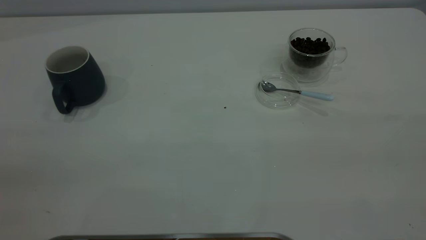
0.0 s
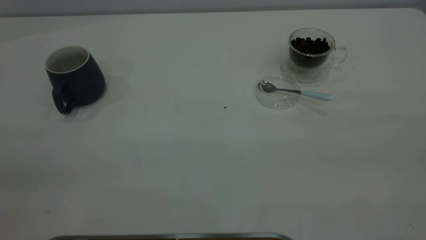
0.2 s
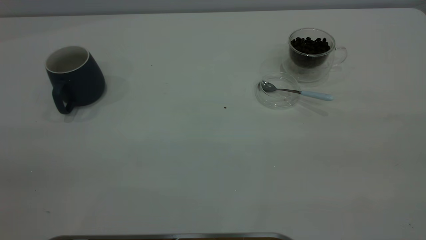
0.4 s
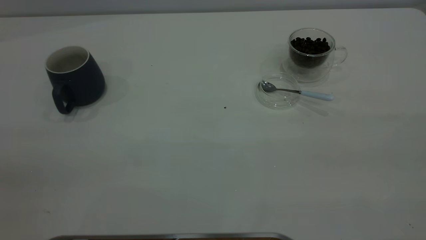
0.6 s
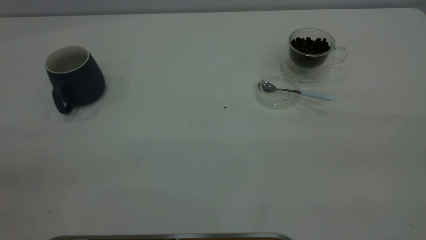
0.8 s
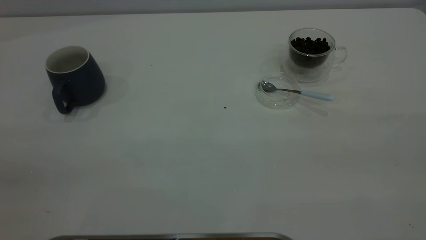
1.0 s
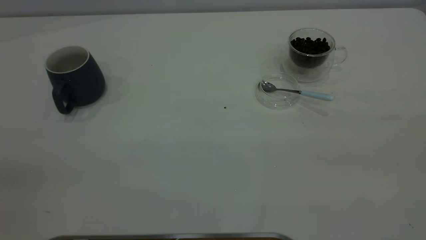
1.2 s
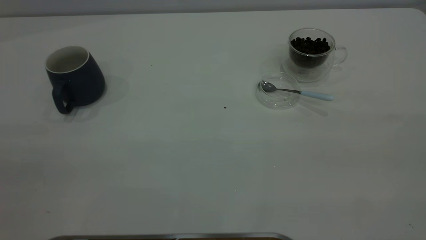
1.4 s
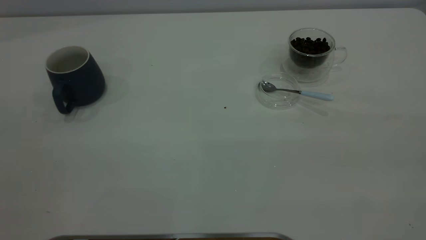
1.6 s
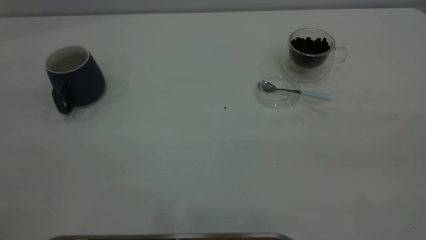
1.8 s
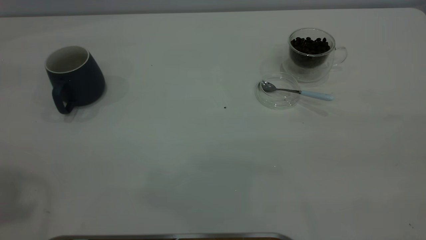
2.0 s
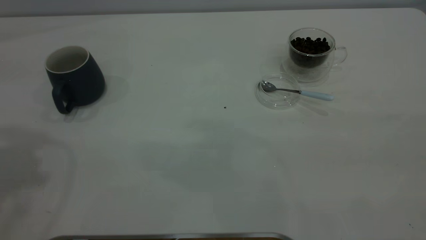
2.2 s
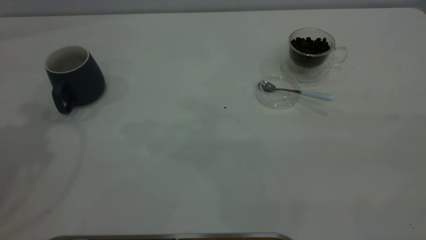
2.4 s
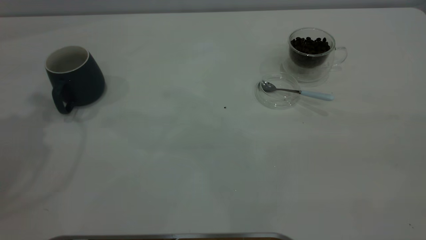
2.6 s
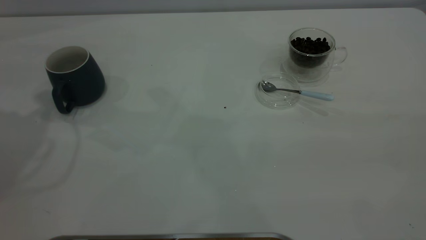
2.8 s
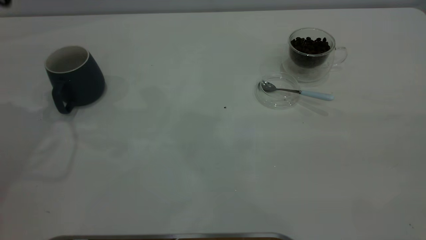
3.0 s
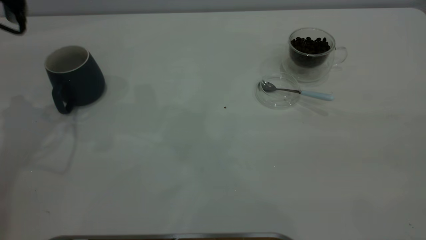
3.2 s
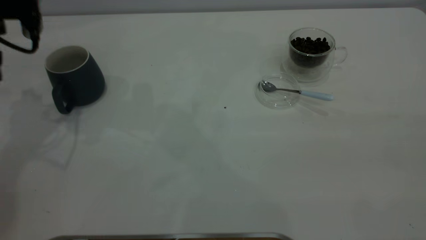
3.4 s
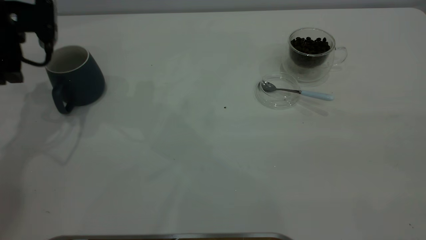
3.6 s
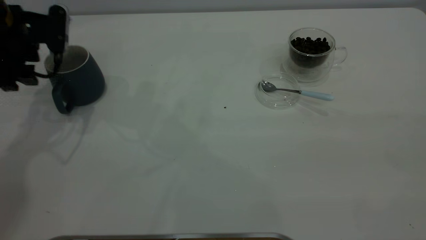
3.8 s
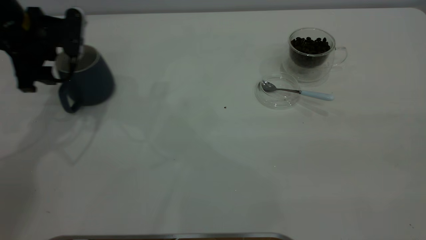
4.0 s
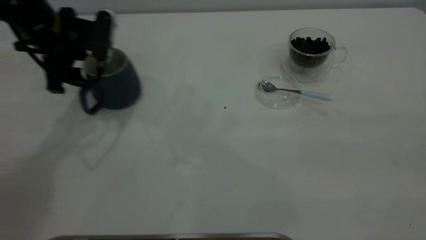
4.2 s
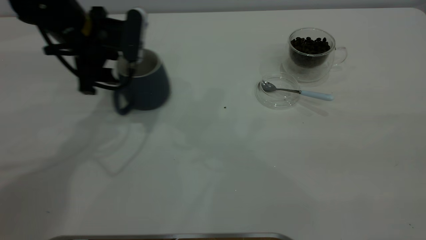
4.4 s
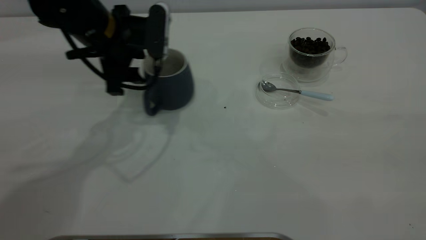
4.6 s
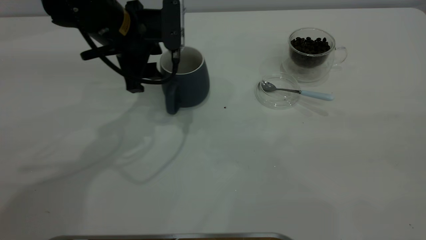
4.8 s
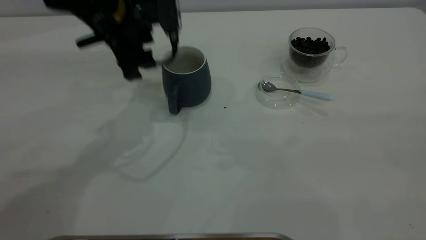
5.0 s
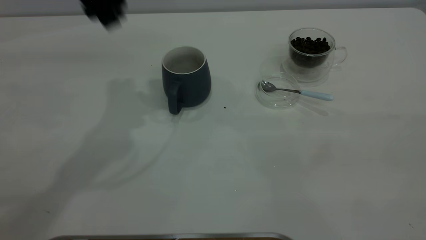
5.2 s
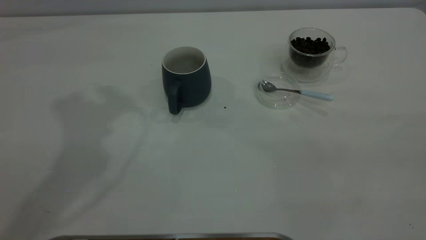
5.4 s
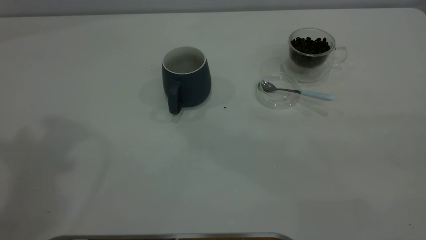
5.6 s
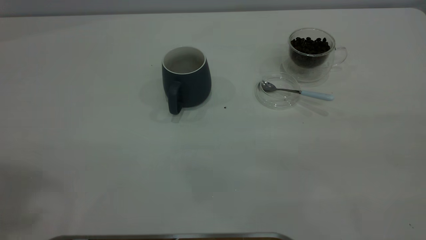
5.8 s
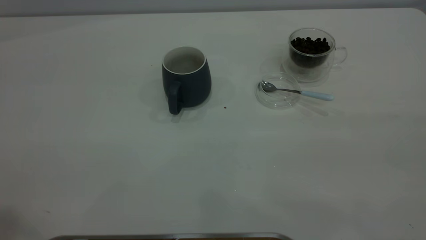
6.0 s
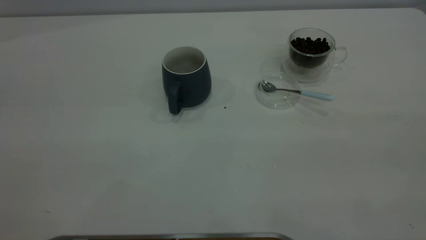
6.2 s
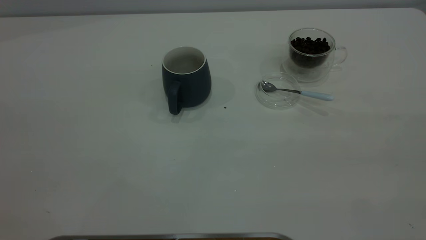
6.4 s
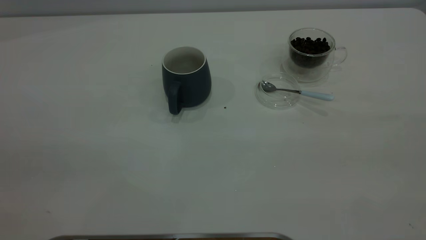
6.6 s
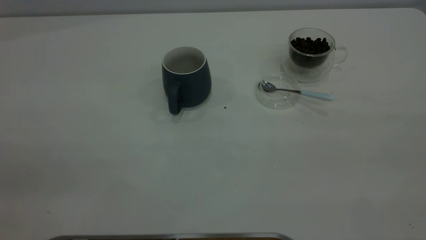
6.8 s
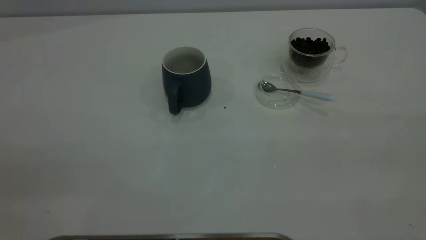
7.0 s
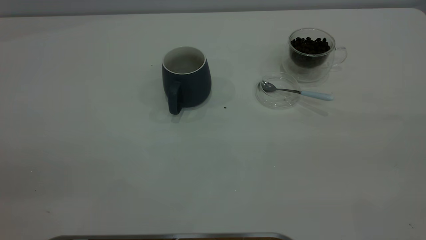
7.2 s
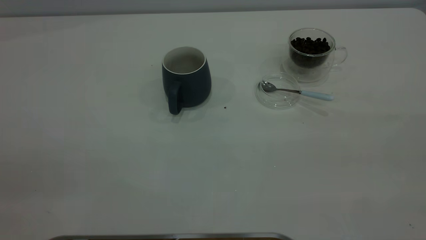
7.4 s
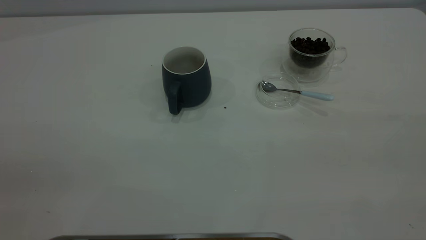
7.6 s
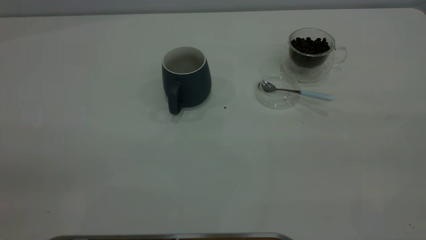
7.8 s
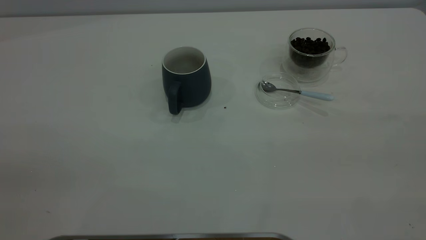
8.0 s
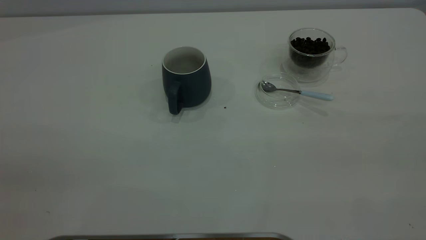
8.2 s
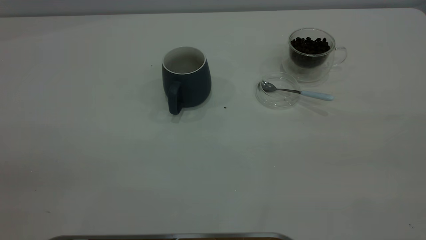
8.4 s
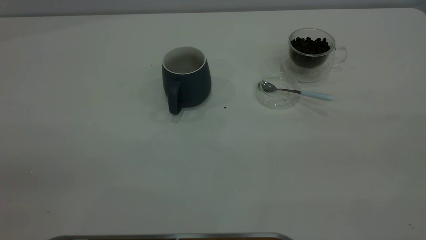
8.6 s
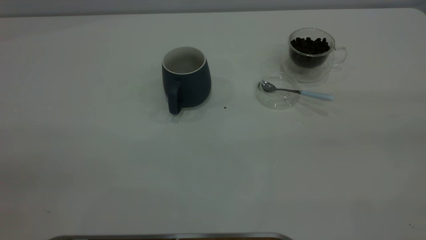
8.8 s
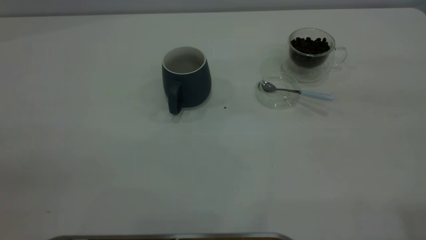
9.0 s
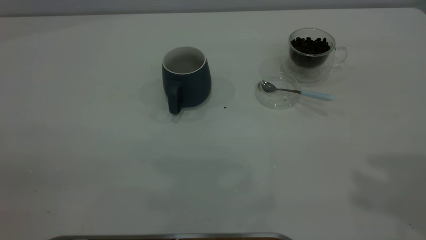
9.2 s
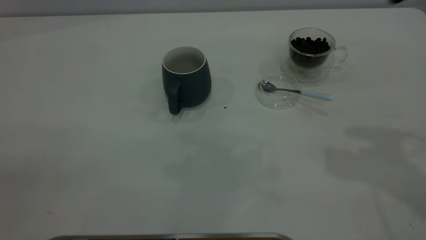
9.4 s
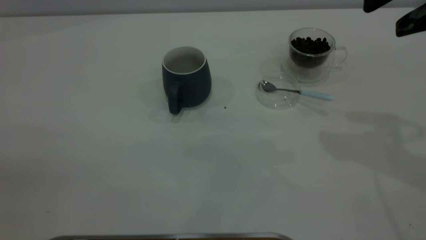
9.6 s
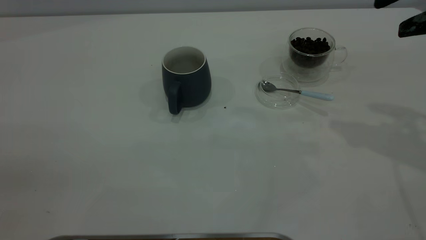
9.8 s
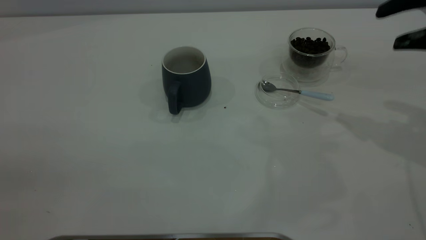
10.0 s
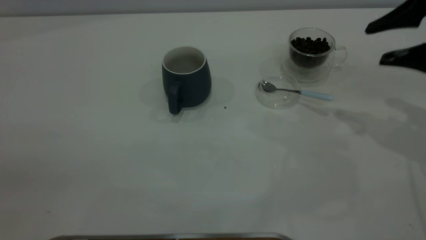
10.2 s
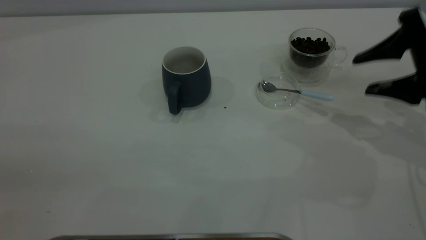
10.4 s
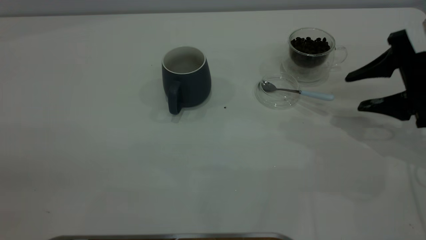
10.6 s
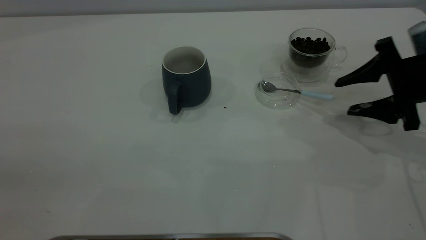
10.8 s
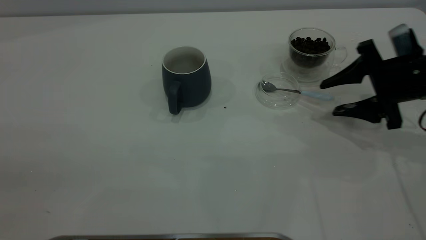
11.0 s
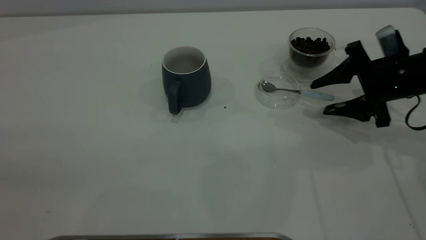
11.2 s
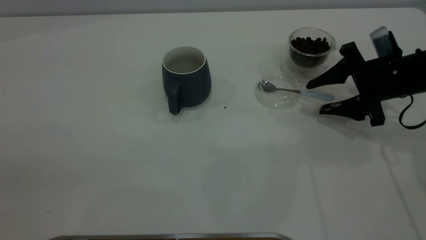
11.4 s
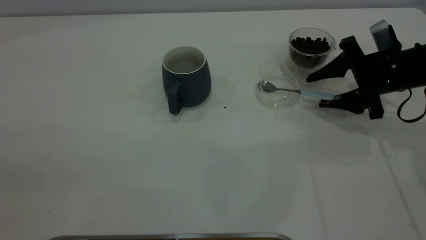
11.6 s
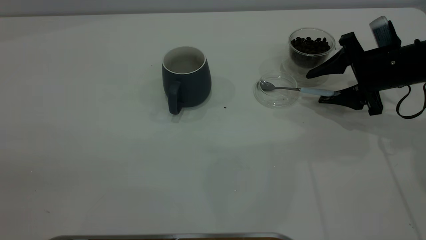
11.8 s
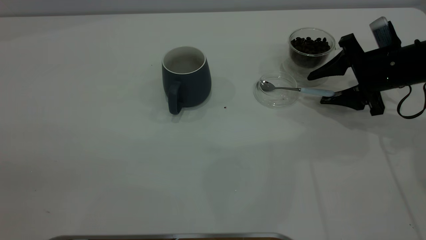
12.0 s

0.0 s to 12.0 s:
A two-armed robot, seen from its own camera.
Task of the whole recording: the left gripper place the grey cup in the center of the table, the right gripper take the blue spoon from the cup lid and scoop out the coffee beans from the coffee cup and put them into the grey cup, the right gripper put the spoon back into the cup lid.
Step, 0.0 to 5.0 s: Move the cup to the center of view.
3.0 to 4.4 s: The left gripper heads to the right and downward, covering roughly 20 cm.
4.4 to 6.0 s: The left gripper moves upward and backward, some 50 cm.
9.0 to 10.4 s: The right gripper shifts roughly 35 cm downward and forward.
10.4 to 12.0 s: The right gripper moves forward and downward, some 10 cm.

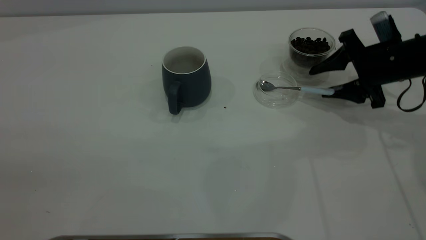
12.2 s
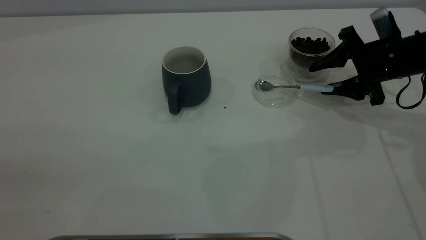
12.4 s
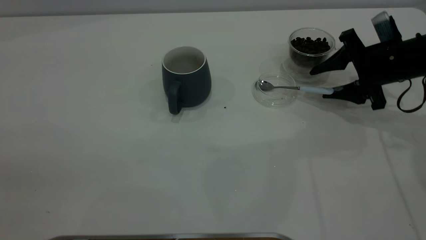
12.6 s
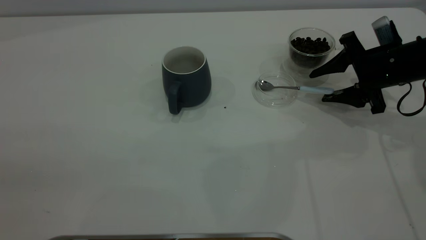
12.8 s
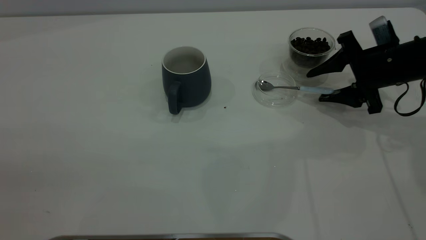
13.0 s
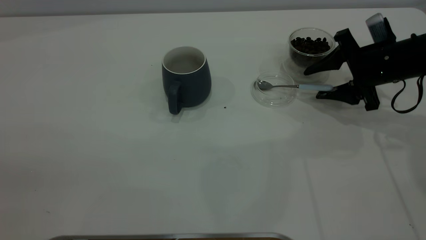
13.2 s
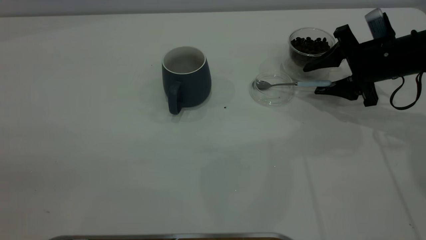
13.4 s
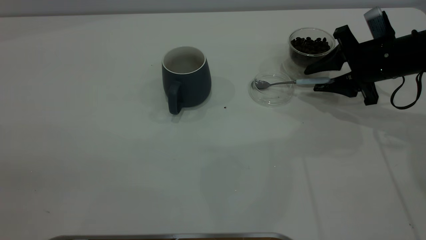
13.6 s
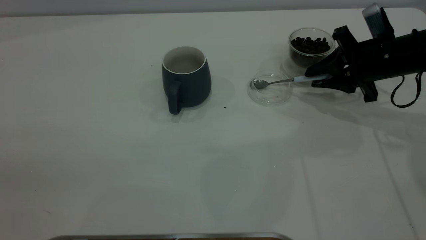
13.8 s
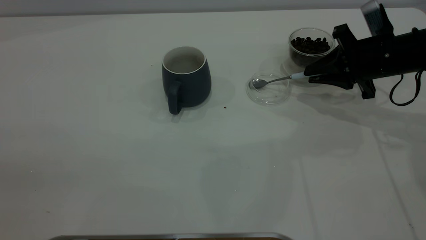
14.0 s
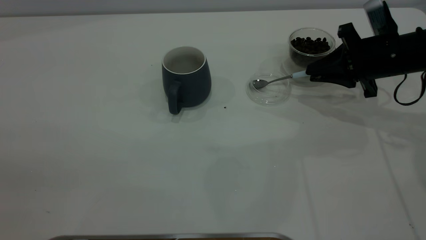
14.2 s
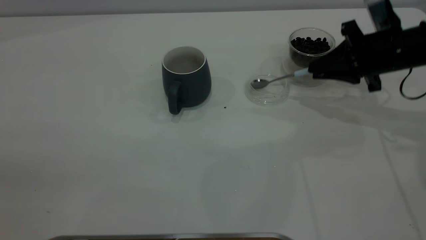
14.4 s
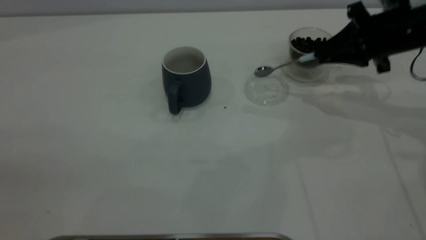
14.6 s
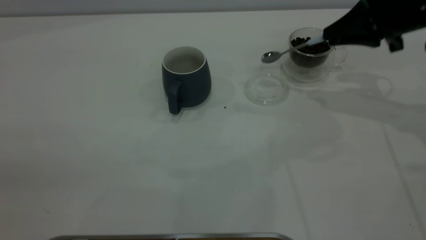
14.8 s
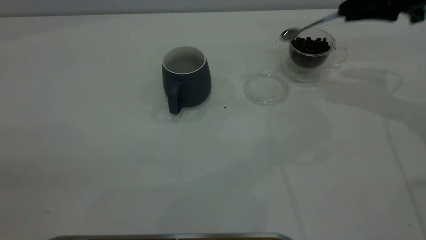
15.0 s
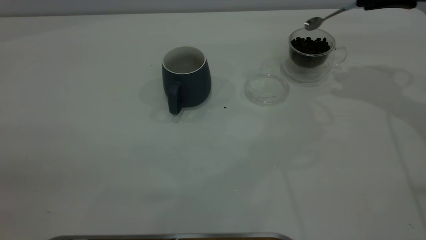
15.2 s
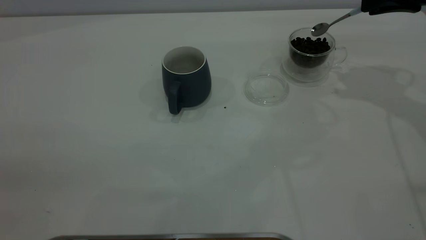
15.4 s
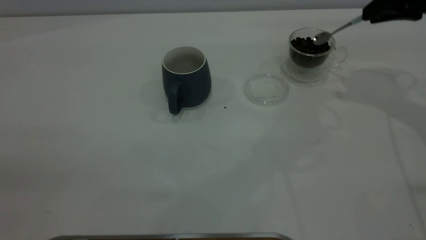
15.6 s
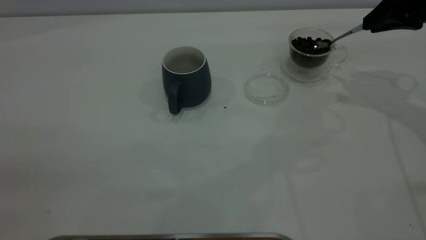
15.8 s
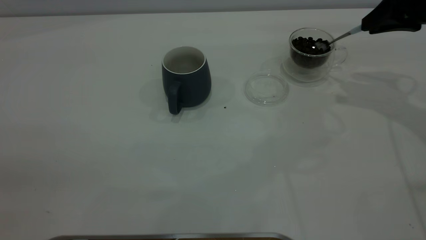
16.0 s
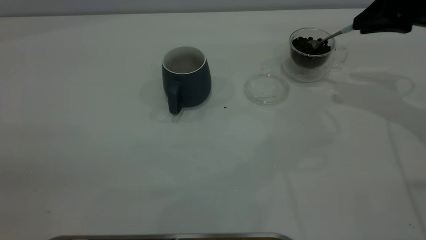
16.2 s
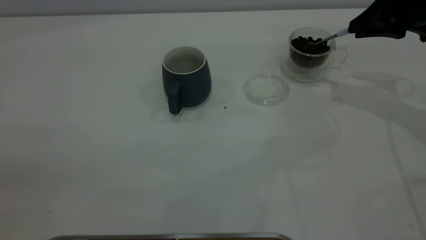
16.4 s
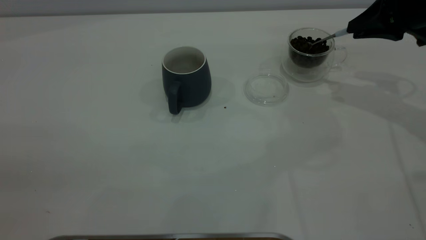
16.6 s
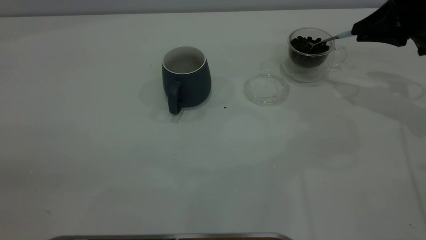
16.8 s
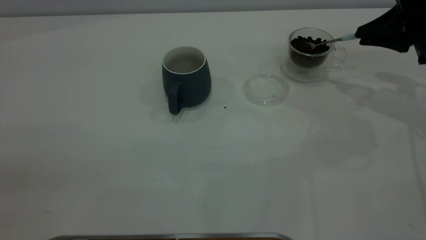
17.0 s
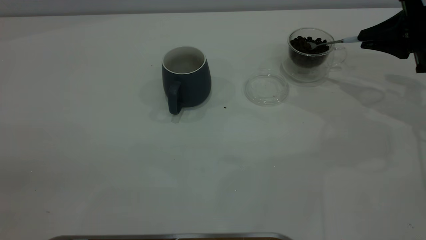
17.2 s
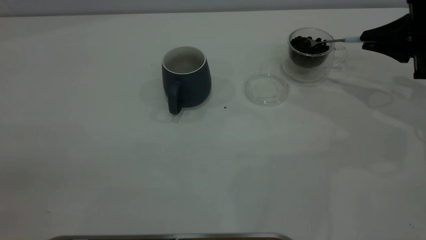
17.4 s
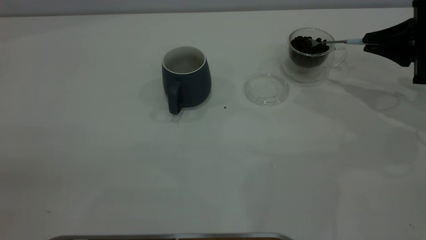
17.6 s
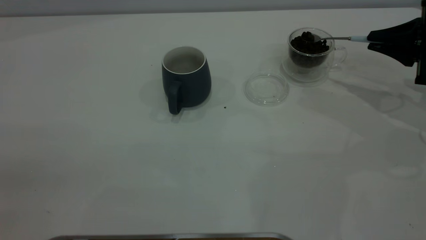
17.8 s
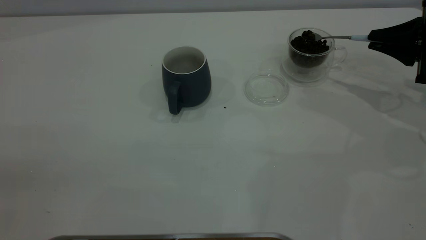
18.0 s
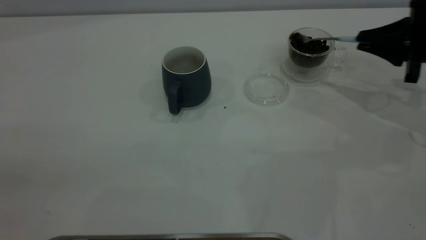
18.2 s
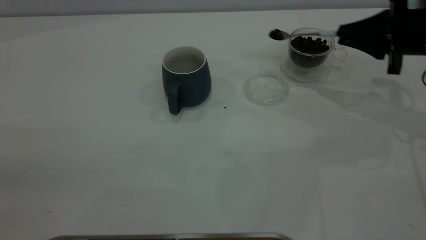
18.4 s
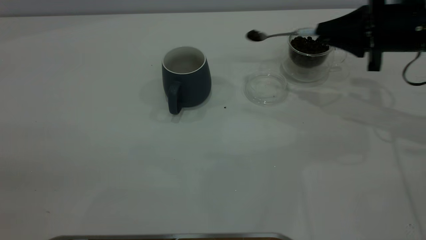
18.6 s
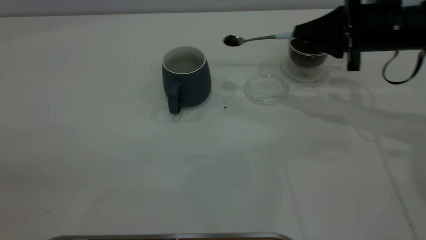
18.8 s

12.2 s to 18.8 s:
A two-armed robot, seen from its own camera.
Task of the whole recording: the left gripper place the grey cup in the center of the table, the right gripper take the blue spoon from the cup lid and scoop out the coffee beans from the coffee cup and put them into the grey cup, the right gripper put the spoon back into the cup lid.
Step, 12.2 to 14.8 s: Pick up the spoon.
12.2 to 13.8 s: The right gripper closes its fingers.
13.8 to 15.4 s: The right gripper is displaced upward by about 15 cm.
15.4 to 17.2 s: The right gripper goes some 10 cm downward.
17.2 to 18.8 s: The right gripper shifts roughly 10 cm to the left.
